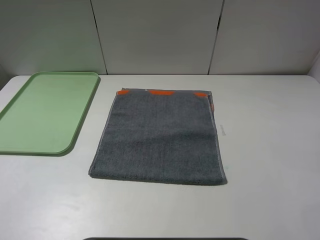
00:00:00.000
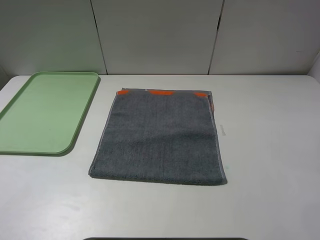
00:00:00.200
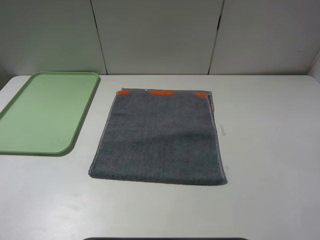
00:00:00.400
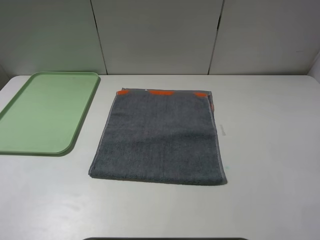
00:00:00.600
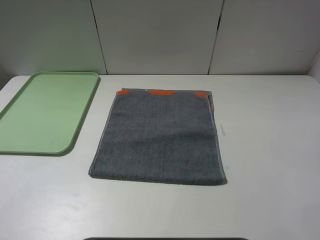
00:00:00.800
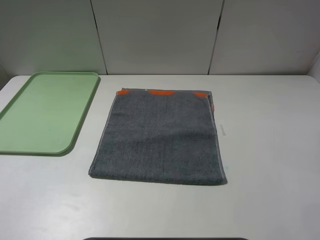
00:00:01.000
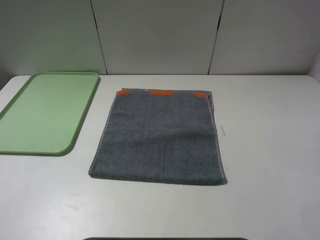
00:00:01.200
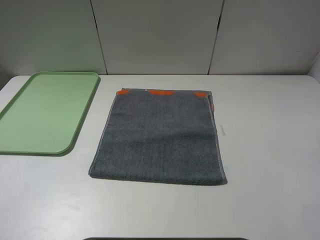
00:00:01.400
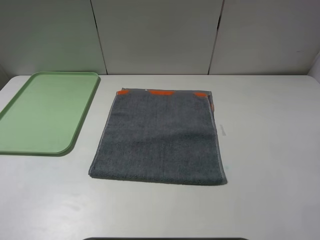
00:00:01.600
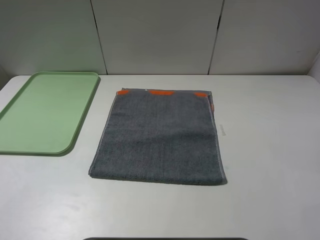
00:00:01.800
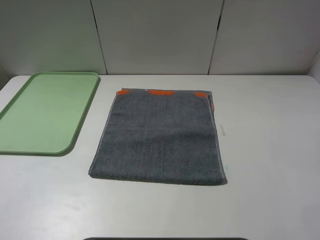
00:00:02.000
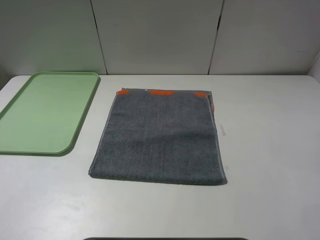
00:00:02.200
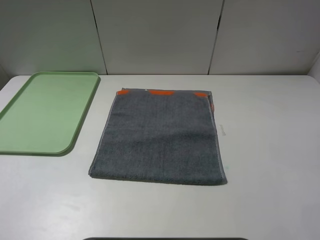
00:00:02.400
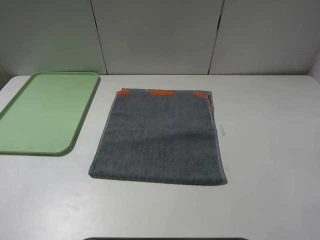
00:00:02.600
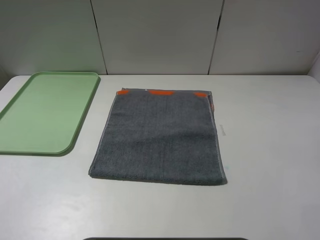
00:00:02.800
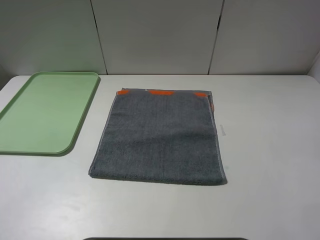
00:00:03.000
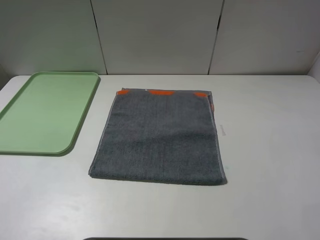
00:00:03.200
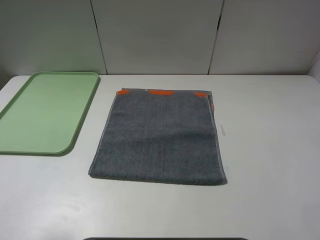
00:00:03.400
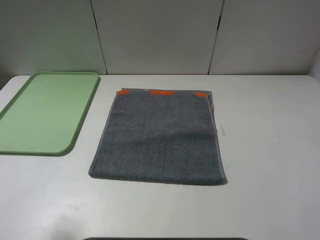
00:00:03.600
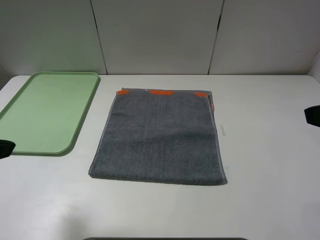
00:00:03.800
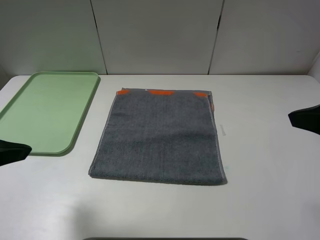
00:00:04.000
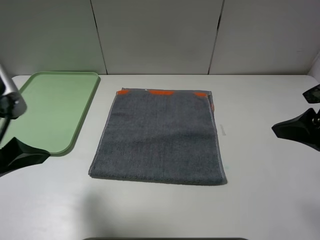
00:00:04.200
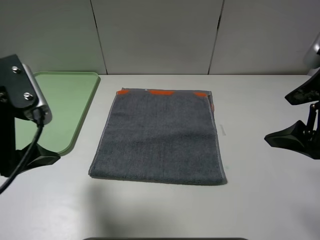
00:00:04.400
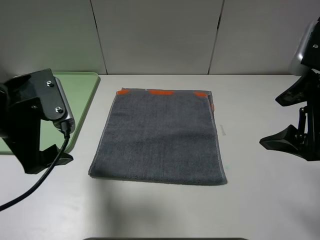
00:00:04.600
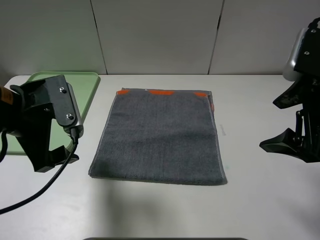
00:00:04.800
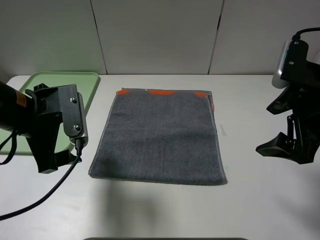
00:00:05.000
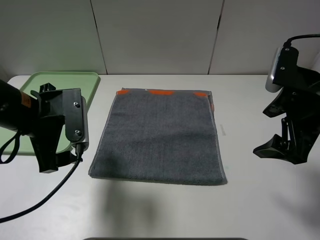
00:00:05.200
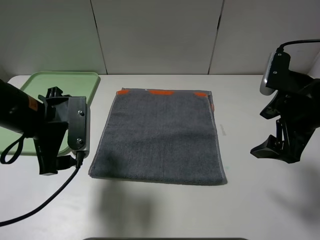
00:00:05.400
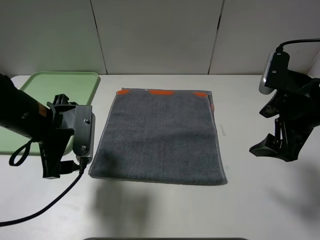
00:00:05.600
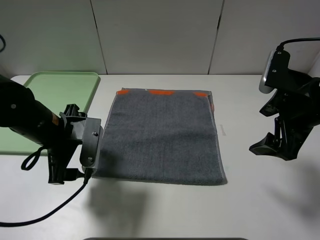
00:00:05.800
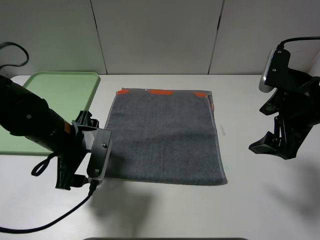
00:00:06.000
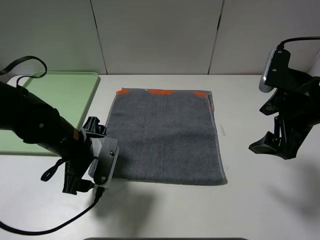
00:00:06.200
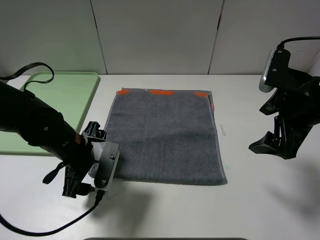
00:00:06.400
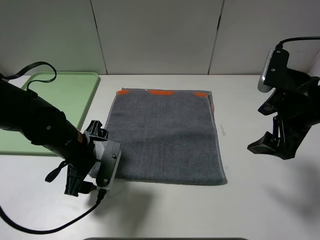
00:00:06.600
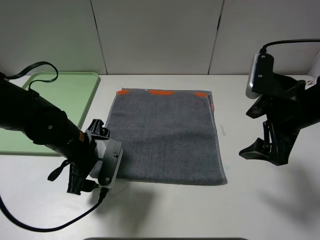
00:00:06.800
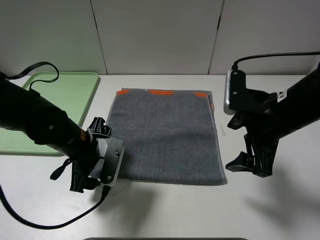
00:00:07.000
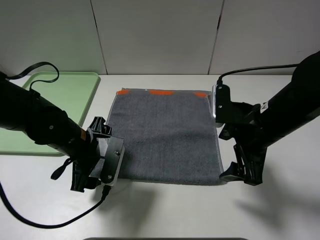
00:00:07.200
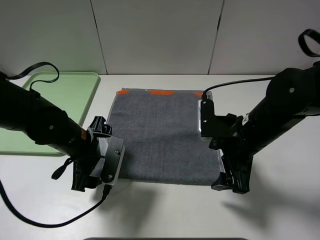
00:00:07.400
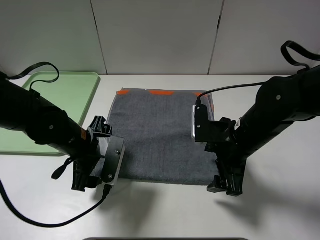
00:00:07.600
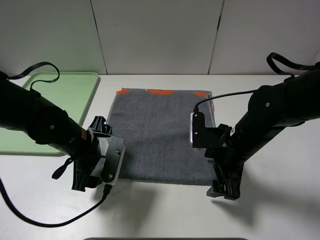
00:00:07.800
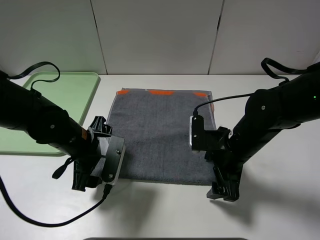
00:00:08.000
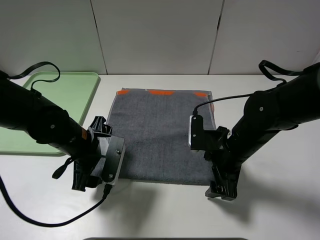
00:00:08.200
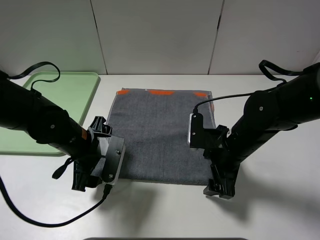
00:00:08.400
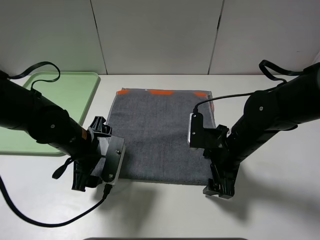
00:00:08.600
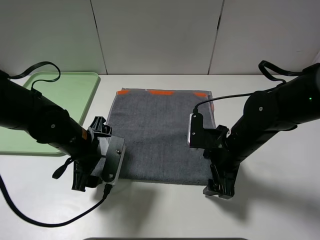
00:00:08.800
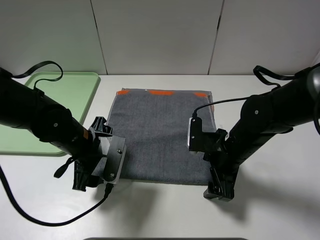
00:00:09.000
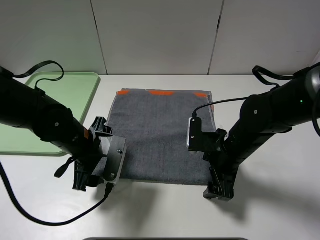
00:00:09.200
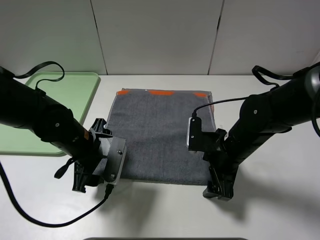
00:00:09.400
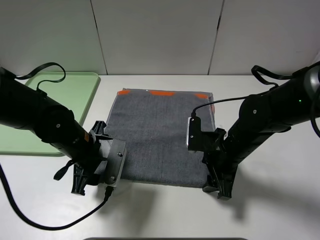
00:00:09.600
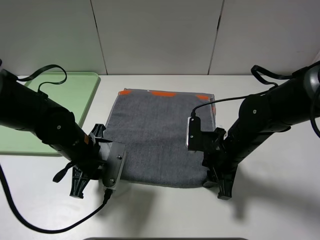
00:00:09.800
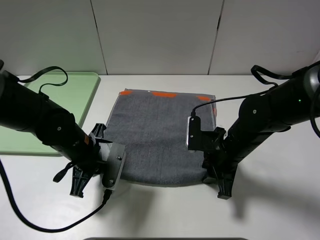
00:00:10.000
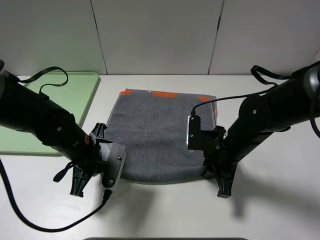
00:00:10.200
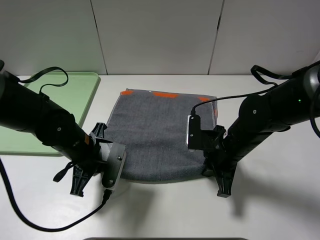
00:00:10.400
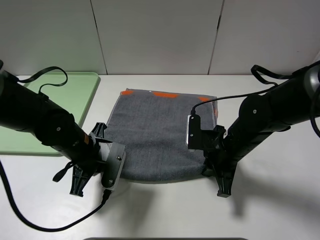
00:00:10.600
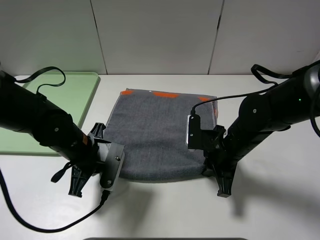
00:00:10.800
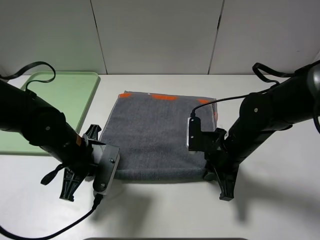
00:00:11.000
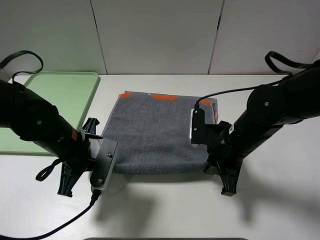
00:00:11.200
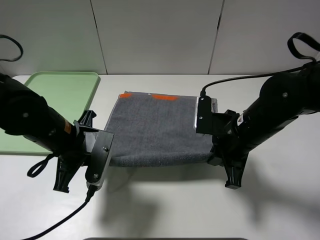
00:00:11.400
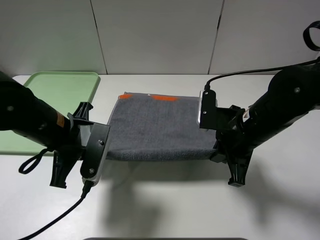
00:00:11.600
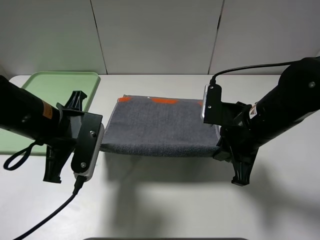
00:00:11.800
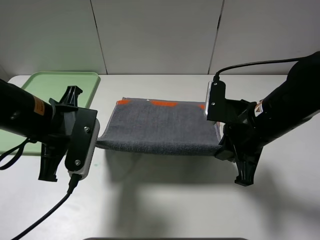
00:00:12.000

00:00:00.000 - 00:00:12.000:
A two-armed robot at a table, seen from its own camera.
00:00:00.000 - 00:00:01.600: The two grippers keep their place.
00:00:03.000 - 00:00:04.400: The right gripper shifts roughly 15 cm forward, while the left gripper heads forward and to the right, covering approximately 15 cm.
00:00:04.400 - 00:00:06.000: The right gripper moves downward, roughly 5 cm, while the left gripper shifts approximately 15 cm downward, to the right and forward.
00:00:06.000 - 00:00:07.600: The right gripper is displaced to the left and downward by roughly 15 cm.
00:00:07.600 - 00:00:09.000: The grippers move only a little.
00:00:09.000 - 00:00:10.400: The right gripper closes; the left gripper closes its fingers.
00:00:10.400 - 00:00:12.000: Both grippers move upward, about 10 cm.

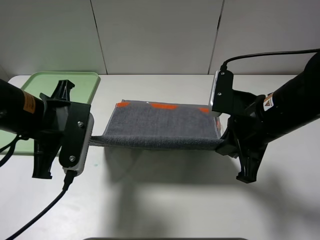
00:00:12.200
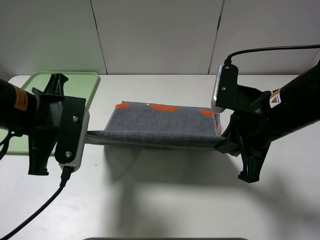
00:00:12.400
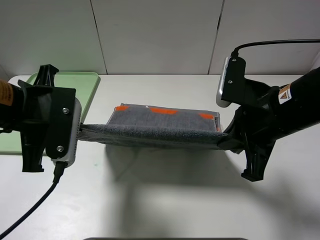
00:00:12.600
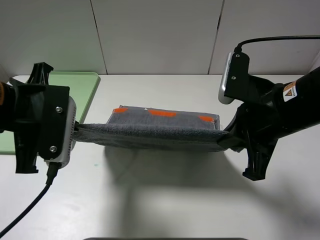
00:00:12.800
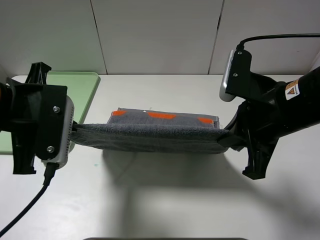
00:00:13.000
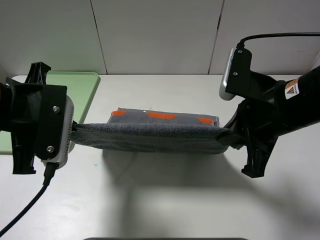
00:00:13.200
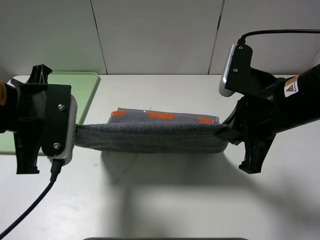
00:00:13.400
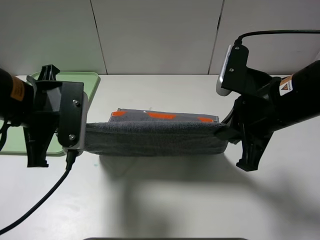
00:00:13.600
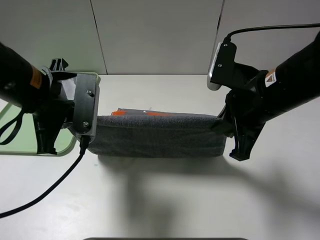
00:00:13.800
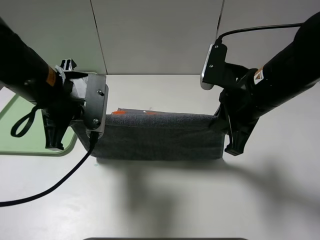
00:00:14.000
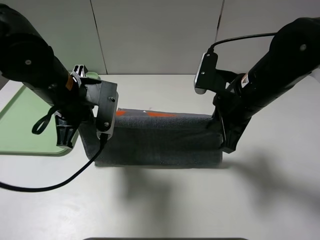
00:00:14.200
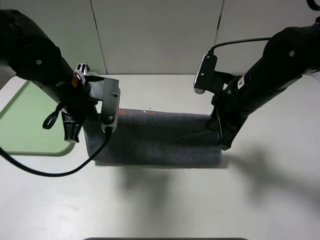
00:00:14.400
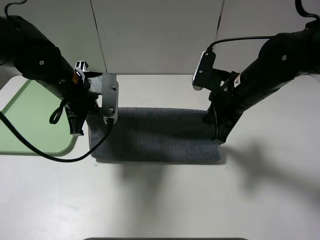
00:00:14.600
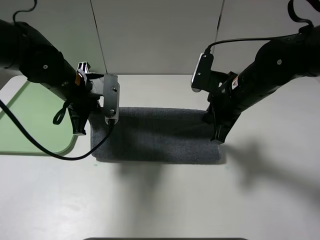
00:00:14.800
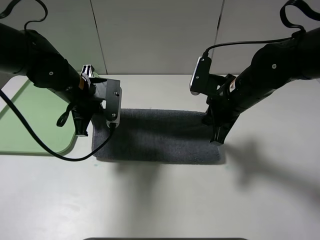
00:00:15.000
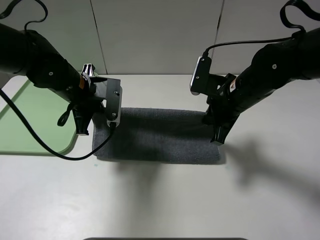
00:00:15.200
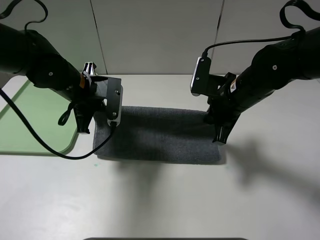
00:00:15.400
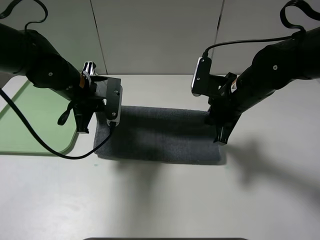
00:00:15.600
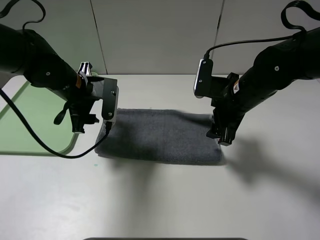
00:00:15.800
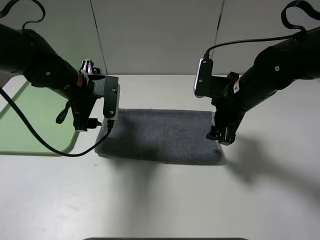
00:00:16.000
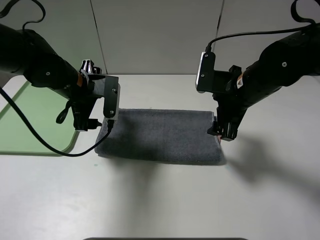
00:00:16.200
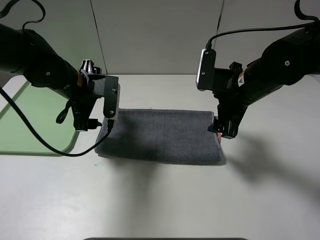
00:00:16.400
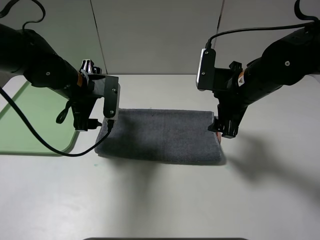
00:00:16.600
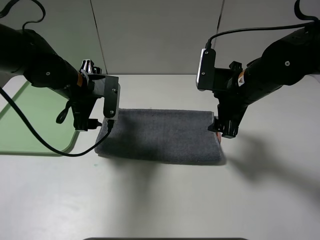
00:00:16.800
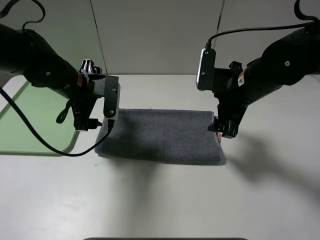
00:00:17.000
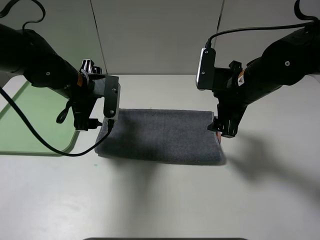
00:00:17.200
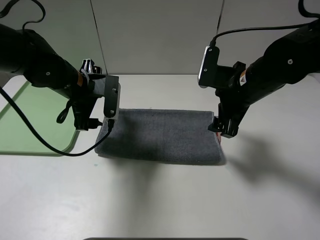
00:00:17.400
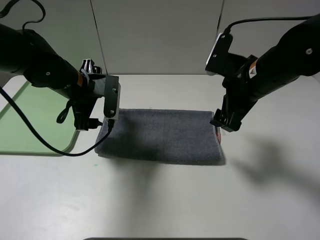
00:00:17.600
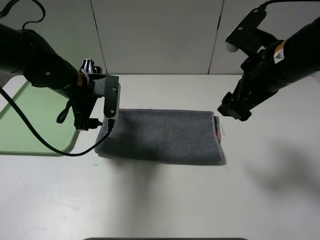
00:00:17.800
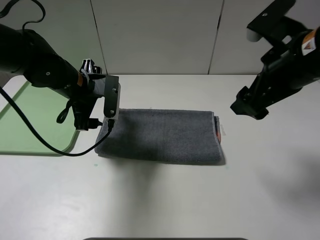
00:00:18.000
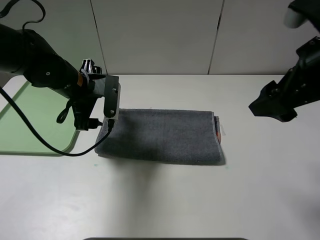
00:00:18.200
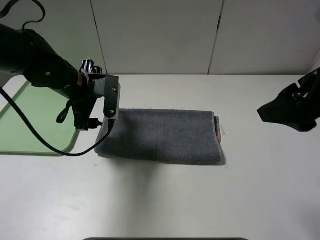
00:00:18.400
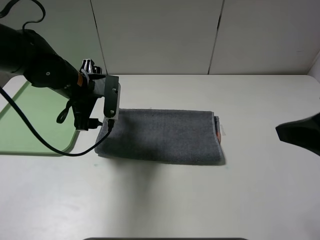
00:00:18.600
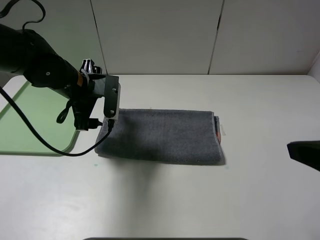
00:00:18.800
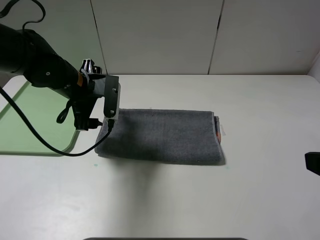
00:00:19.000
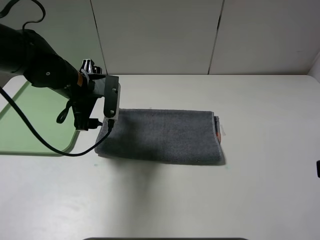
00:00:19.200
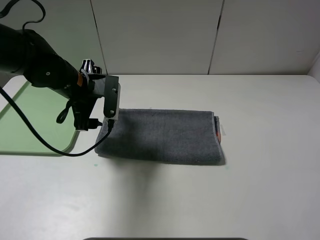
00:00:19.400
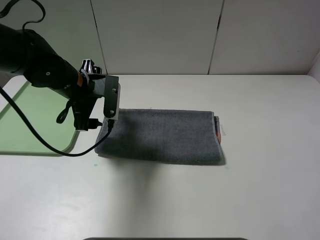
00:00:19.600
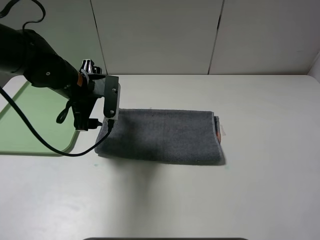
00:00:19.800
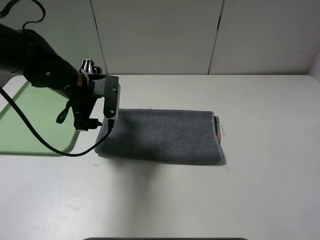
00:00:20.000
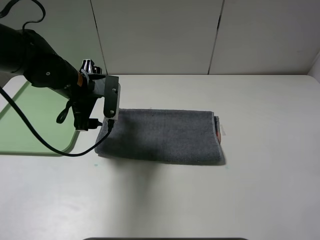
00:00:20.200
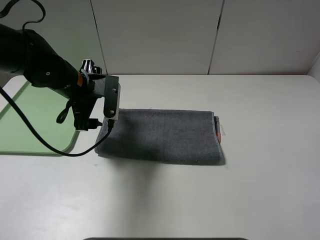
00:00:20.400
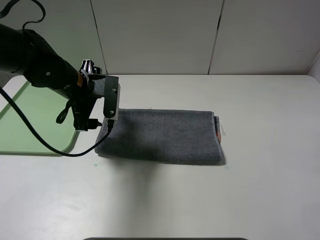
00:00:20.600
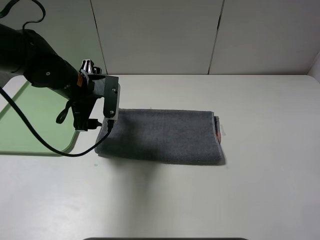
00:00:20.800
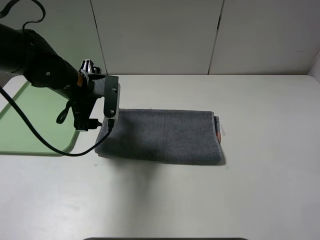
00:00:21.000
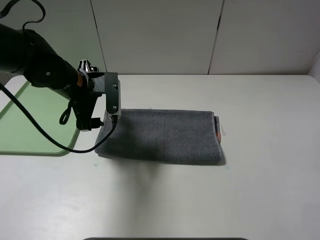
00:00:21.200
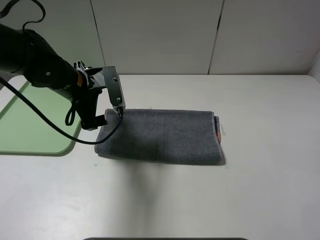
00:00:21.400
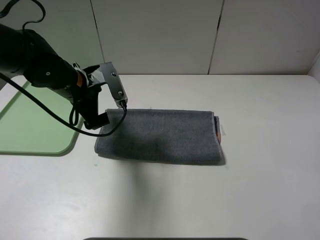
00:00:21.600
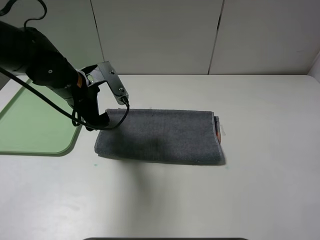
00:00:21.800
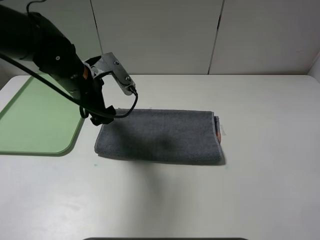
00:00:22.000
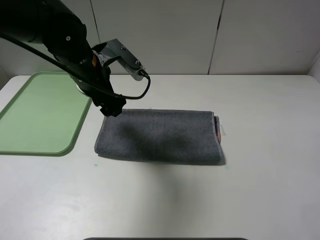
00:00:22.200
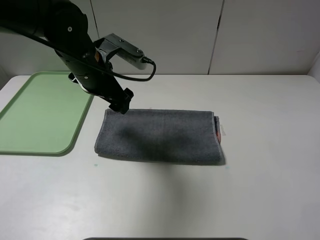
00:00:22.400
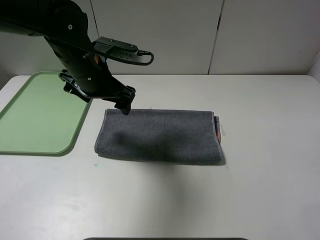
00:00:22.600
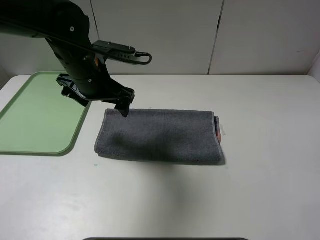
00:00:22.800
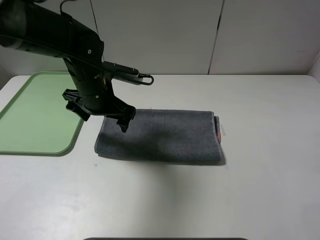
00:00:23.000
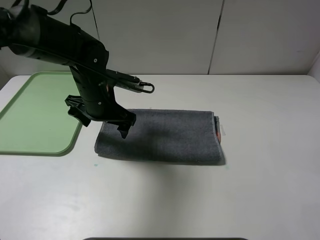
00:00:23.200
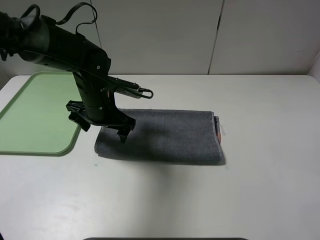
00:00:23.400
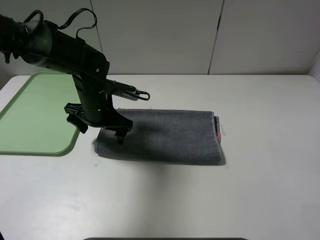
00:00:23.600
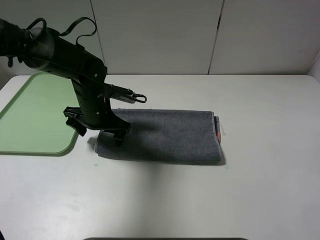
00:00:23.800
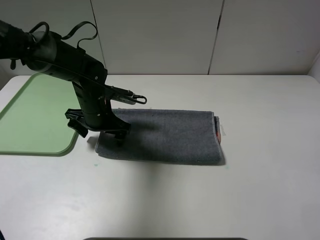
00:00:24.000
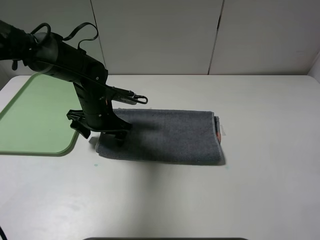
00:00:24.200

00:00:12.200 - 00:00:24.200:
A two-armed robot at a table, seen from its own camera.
Step, 00:00:12.200 - 00:00:15.800: Fold the grey towel upwards.
00:00:13.800 - 00:00:15.200: Both grippers travel together forward and downward, about 10 cm.
00:00:15.200 - 00:00:16.600: The left gripper opens up. The right gripper opens up.
00:00:16.600 - 00:00:18.200: The right gripper goes approximately 15 cm upward, backward and to the right.
00:00:18.200 - 00:00:19.800: The right gripper travels backward and to the right by some 15 cm.
00:00:21.200 - 00:00:22.600: The left gripper changes place by approximately 5 cm.
00:00:22.600 - 00:00:24.200: The left gripper moves downward, some 10 cm.
